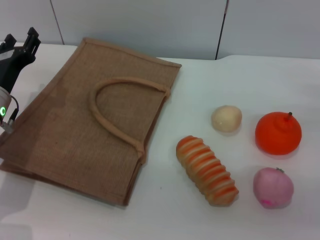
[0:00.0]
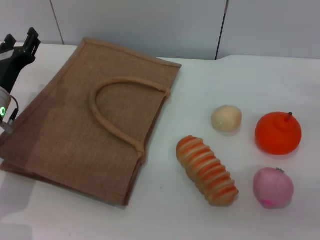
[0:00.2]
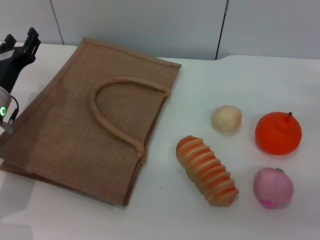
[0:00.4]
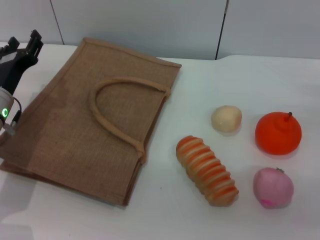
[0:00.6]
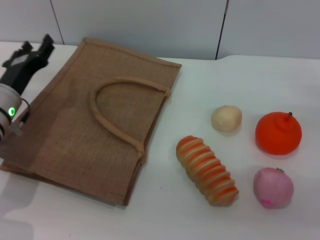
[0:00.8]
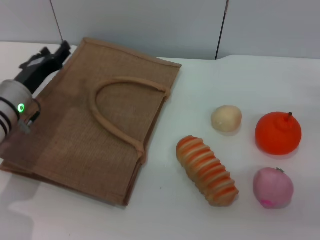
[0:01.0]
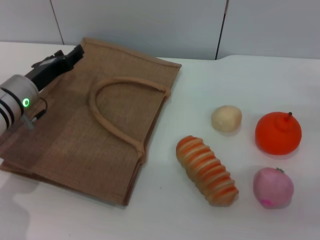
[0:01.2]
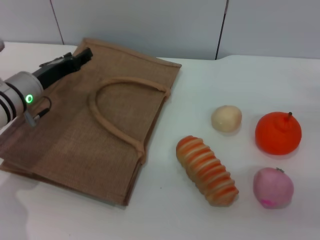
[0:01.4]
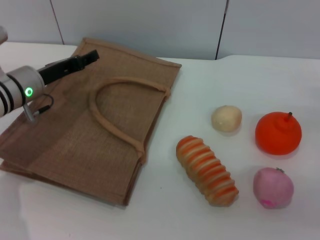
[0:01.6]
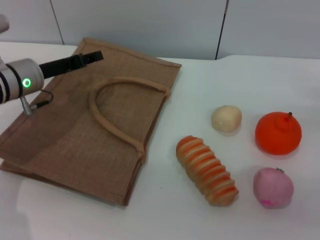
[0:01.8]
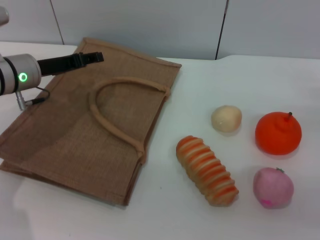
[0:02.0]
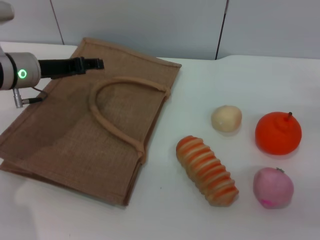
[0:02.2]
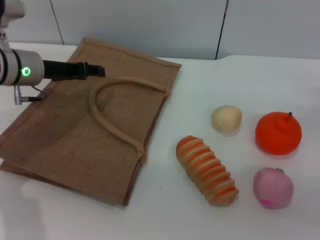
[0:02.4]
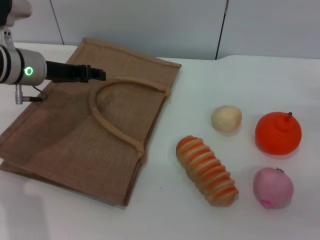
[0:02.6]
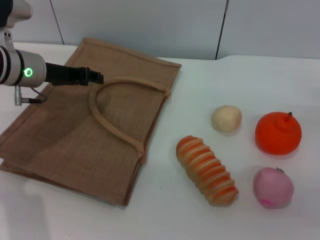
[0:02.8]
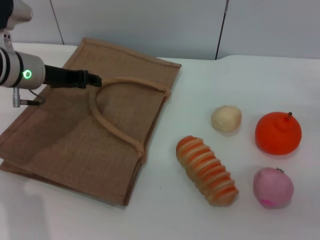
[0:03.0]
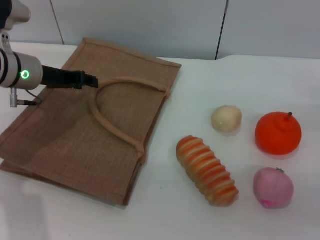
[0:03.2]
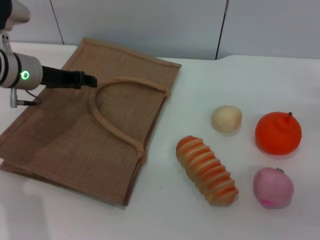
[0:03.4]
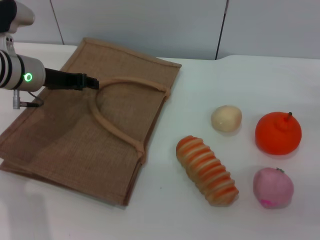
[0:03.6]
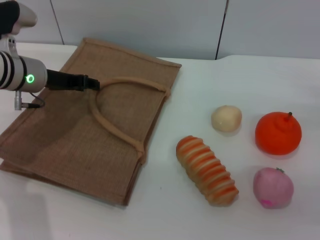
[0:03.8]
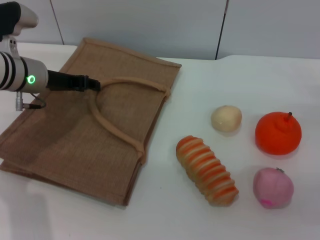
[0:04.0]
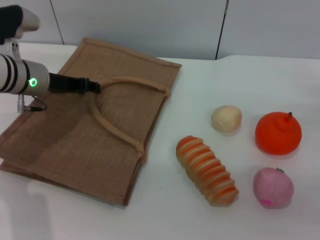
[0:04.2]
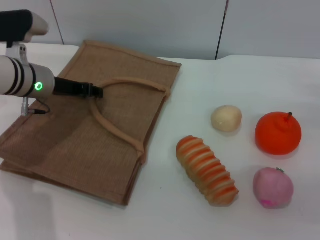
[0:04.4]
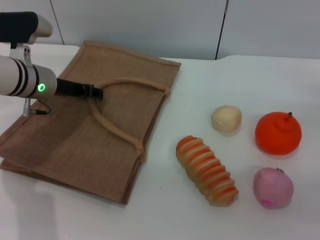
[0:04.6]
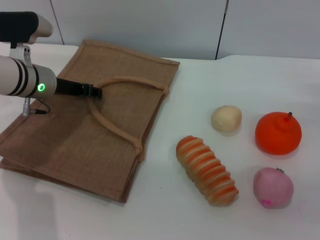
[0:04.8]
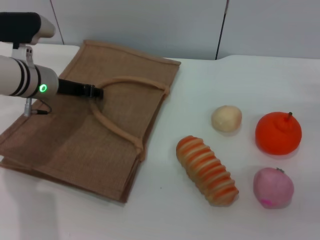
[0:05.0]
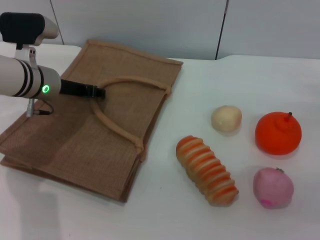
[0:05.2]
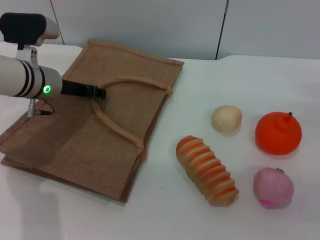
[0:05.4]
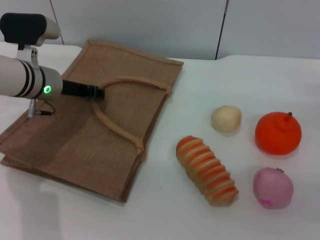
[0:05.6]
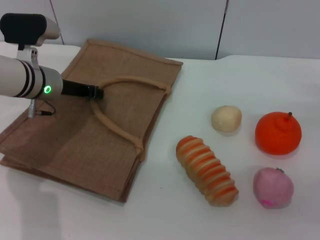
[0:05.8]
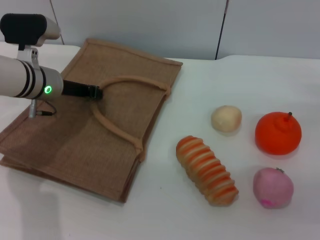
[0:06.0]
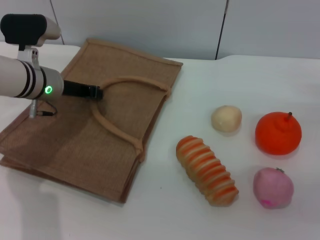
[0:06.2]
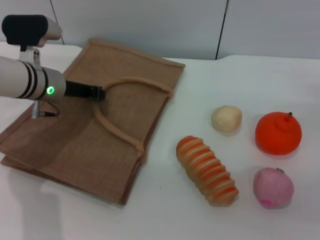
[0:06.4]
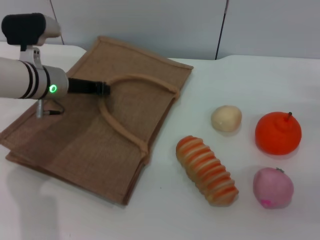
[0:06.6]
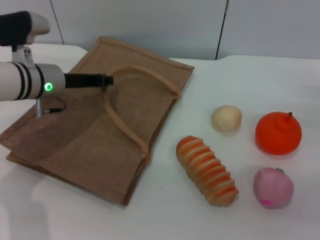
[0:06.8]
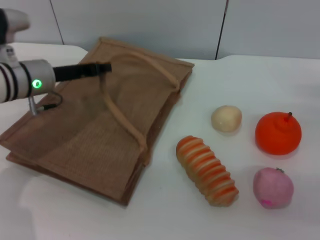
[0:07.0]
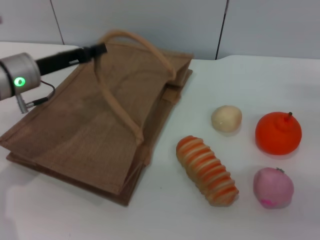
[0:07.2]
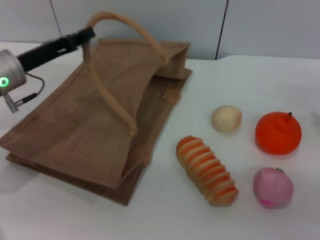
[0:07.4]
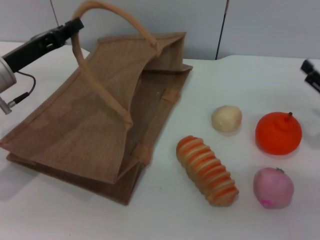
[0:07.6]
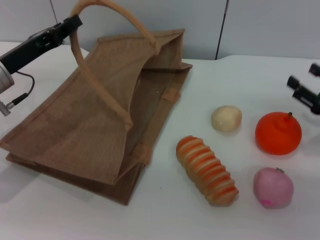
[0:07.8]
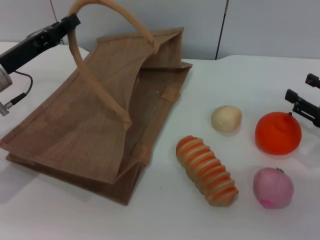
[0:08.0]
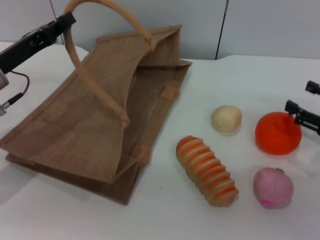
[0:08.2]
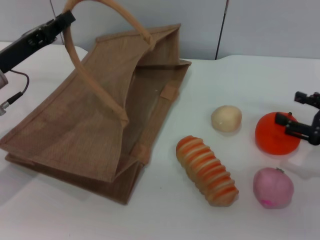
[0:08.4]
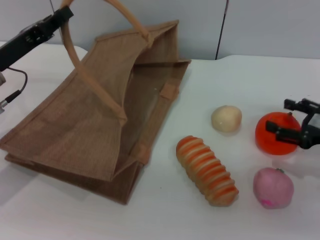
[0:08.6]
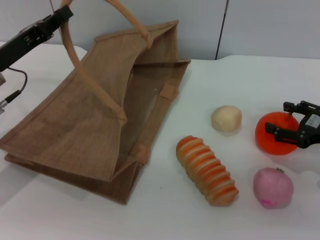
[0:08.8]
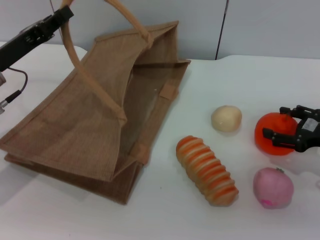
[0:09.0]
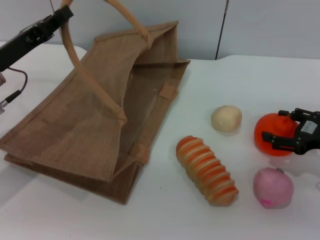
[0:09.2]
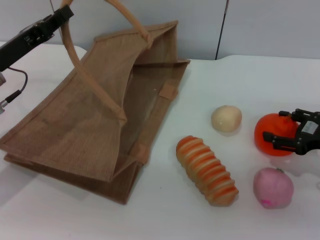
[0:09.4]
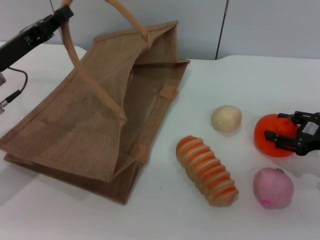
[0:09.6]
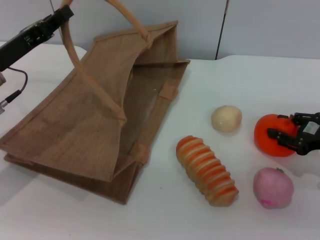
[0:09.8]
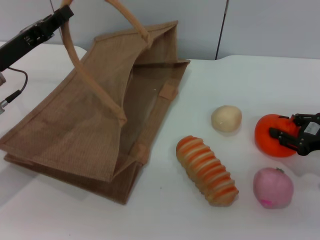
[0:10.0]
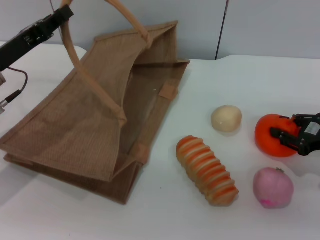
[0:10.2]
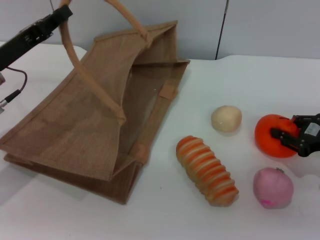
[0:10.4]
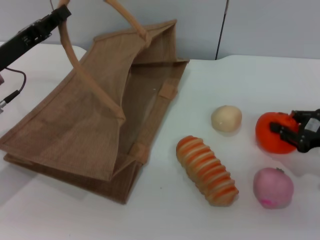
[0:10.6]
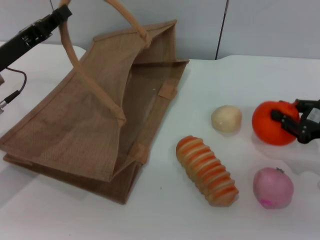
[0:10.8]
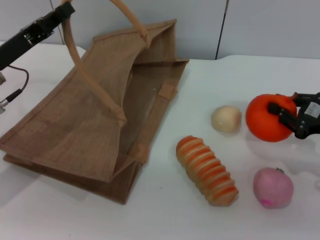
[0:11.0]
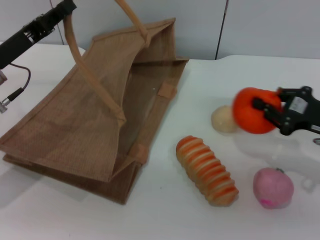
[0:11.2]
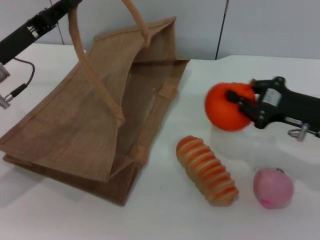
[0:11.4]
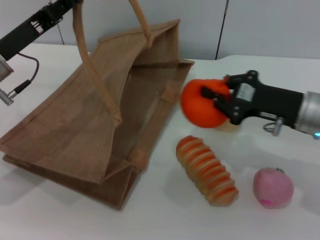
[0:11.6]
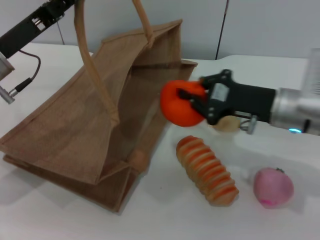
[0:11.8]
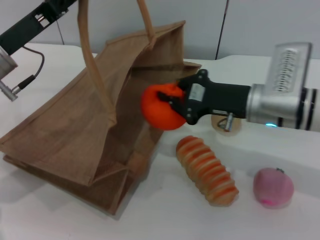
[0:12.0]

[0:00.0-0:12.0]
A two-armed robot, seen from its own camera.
Task of the whole recording: pick up the orange from the table and place it in the brown handbag.
Step, 0:00.0 to 0:07.2: Lift the woven bag with the left gripper to open it.
Step, 0:07.4 to 0:10.8: Pick up the orange with the right gripper.
0:00.0 to 0:01.6: The left gripper moves approximately 5 cm.
0:01.6 to 0:03.0: The left gripper shifts by about 5 cm.
0:03.0 to 0:04.4: The grippers move only a little.
0:04.4 to 0:06.0: The left gripper closes up.
0:06.0 to 0:07.6: The left gripper heads backward and to the left, covering roughly 10 cm.
0:09.0 to 0:10.4: The right gripper closes its fingers.
0:10.4 to 0:12.0: The right gripper shifts about 20 cm to the left, and closes.

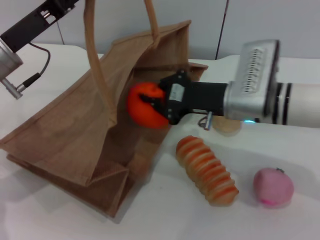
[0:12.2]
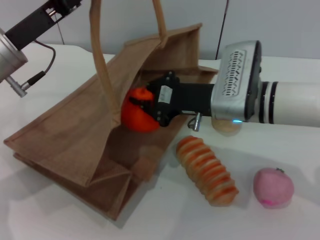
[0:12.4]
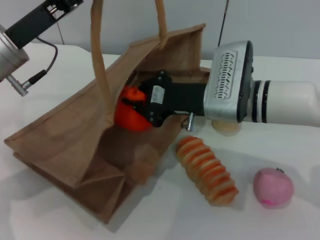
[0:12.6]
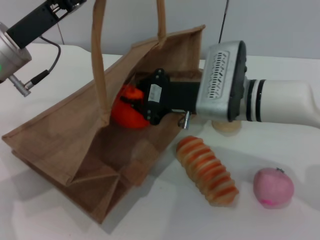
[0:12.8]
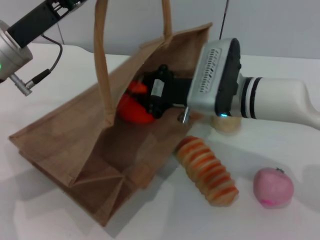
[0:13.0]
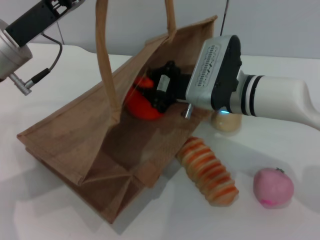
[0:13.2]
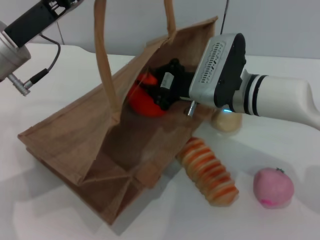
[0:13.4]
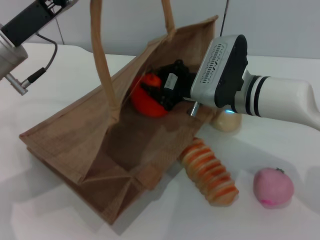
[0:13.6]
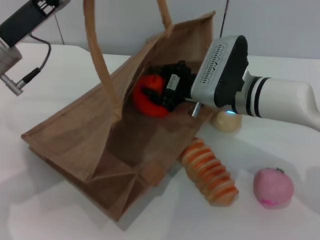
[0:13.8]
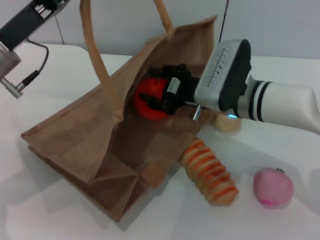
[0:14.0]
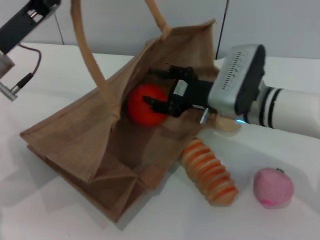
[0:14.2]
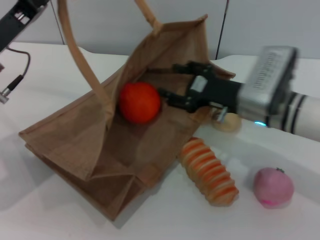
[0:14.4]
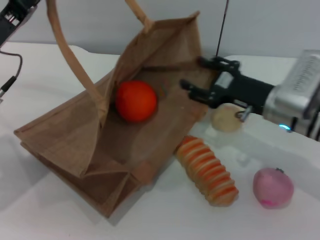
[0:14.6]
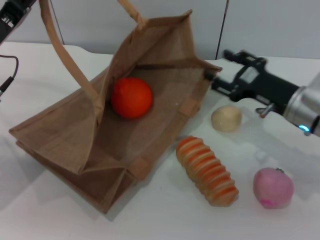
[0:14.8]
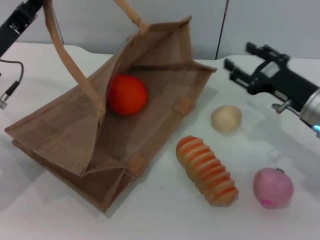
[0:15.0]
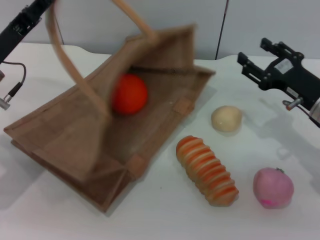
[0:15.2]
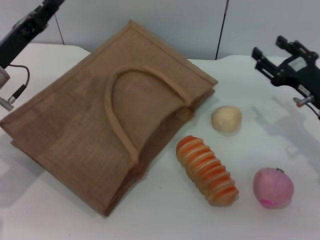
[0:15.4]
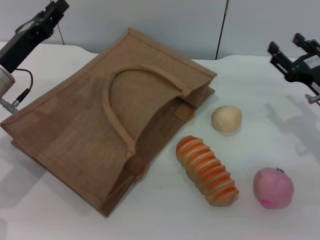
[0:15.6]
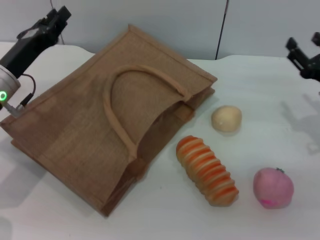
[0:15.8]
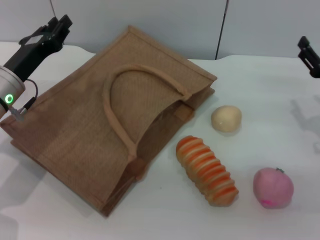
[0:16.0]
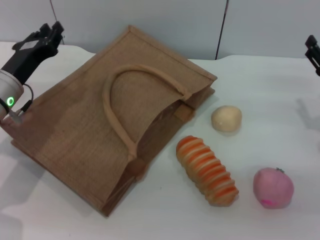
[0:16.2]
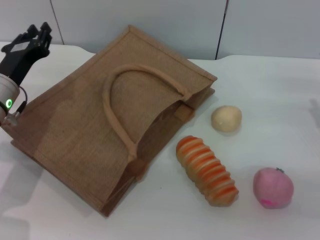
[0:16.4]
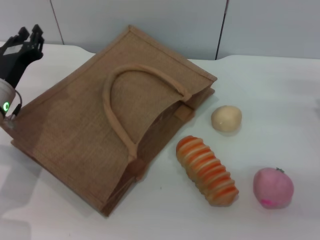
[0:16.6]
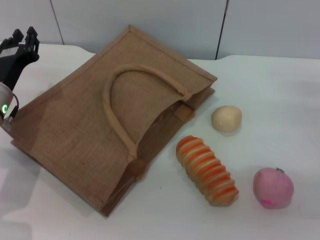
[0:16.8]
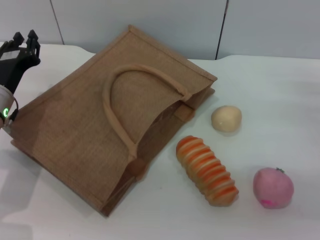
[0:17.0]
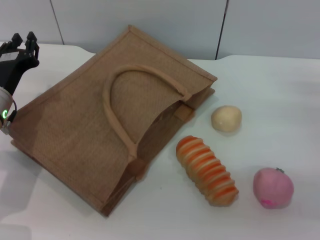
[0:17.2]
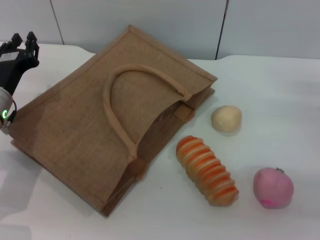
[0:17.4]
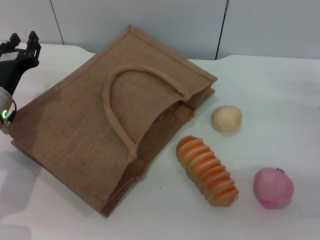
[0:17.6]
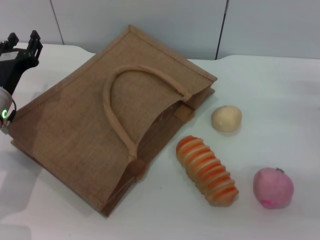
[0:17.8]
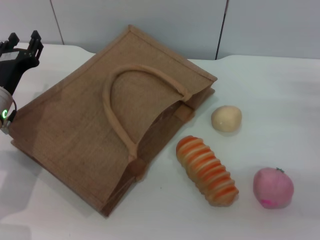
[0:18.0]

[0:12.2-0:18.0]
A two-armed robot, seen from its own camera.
Task of the whole recording: pick up the orange from the table and place it in the brown handbag.
Step, 0:12.2 to 0:14.2: Place the orange into the woven bag with the right gripper.
Step, 0:14.6 to 0:15.6: Lower the woven bag with the left gripper to close it.
0:13.6 to 0:15.0: The right gripper moves to the right, approximately 15 cm, and opens; the left gripper changes place by some 5 cm.
0:15.0 to 0:16.6: The right gripper heads to the right, covering about 10 cm. Meanwhile the left gripper goes approximately 5 cm downward, and opens.
0:16.6 to 0:18.0: The left gripper opens up.
